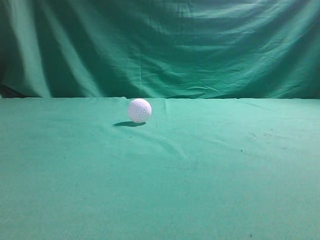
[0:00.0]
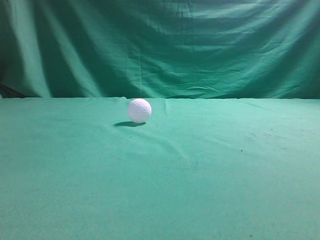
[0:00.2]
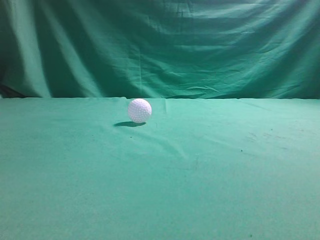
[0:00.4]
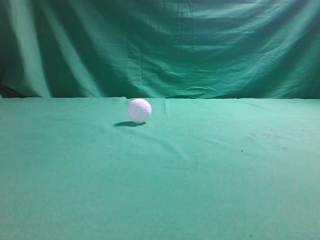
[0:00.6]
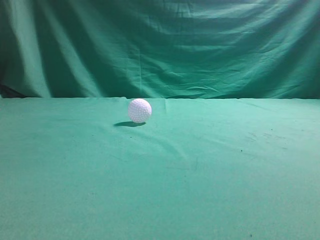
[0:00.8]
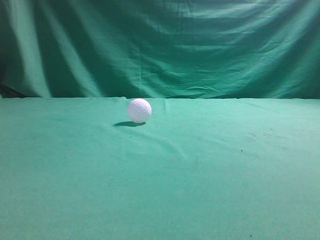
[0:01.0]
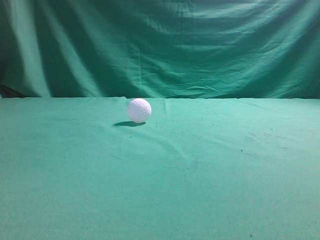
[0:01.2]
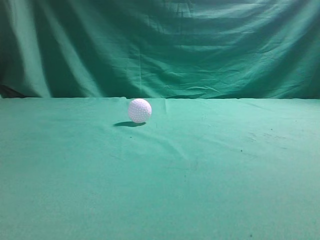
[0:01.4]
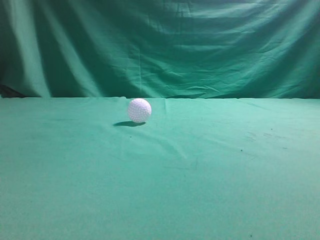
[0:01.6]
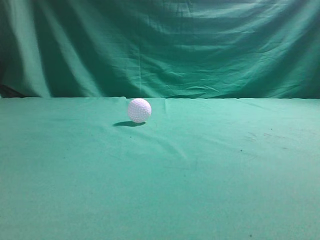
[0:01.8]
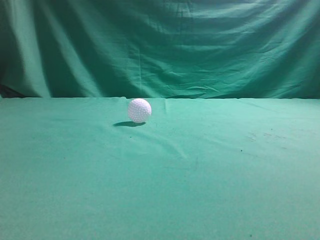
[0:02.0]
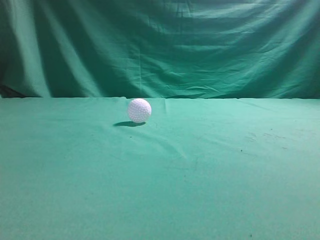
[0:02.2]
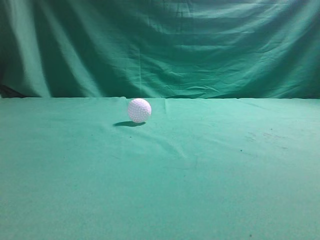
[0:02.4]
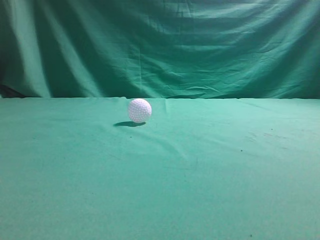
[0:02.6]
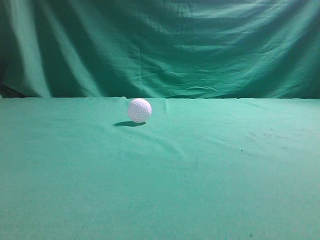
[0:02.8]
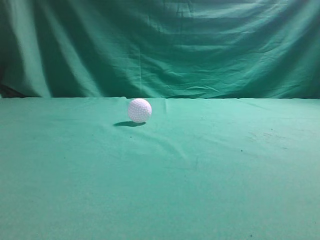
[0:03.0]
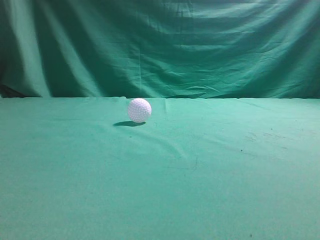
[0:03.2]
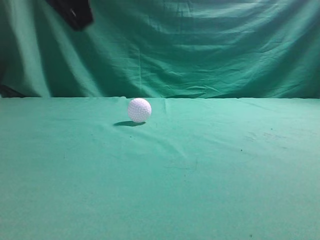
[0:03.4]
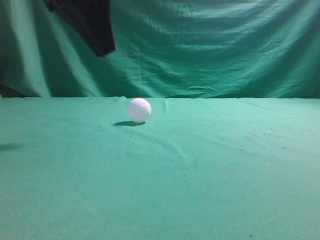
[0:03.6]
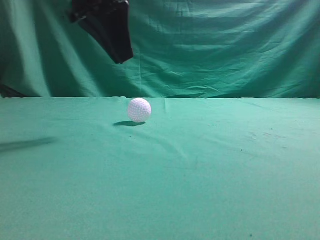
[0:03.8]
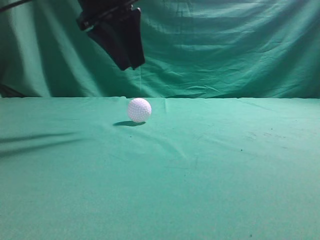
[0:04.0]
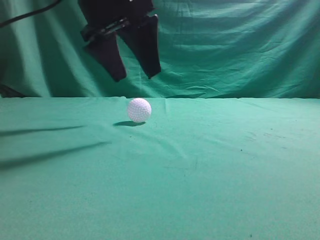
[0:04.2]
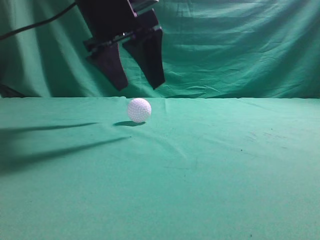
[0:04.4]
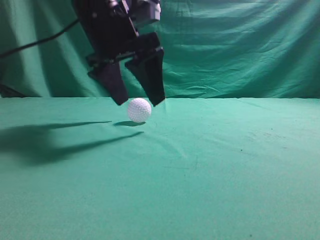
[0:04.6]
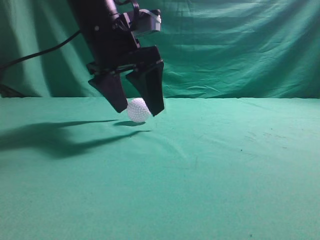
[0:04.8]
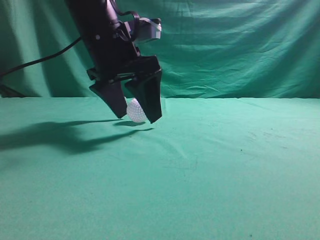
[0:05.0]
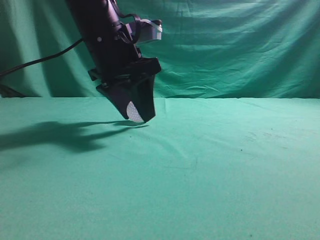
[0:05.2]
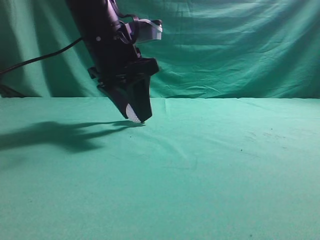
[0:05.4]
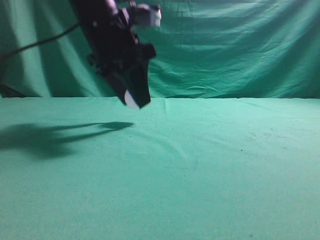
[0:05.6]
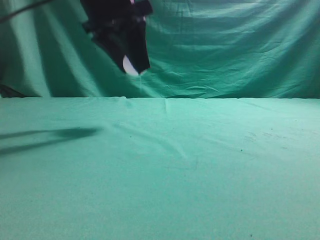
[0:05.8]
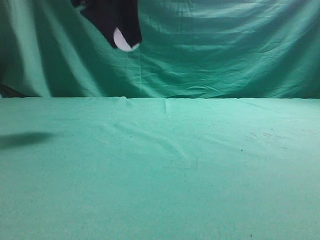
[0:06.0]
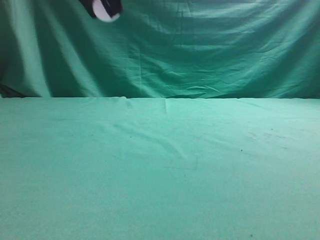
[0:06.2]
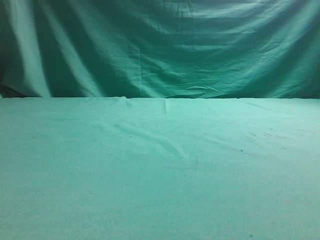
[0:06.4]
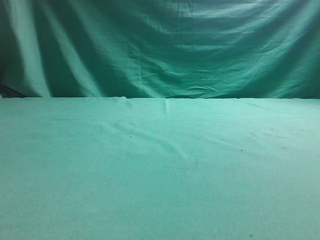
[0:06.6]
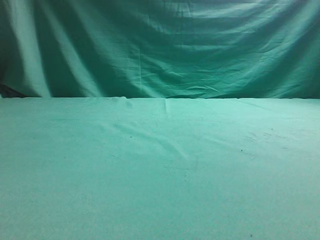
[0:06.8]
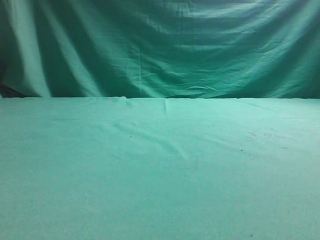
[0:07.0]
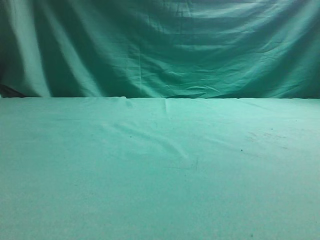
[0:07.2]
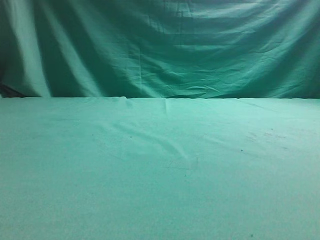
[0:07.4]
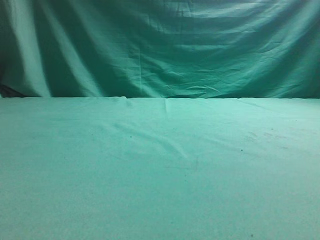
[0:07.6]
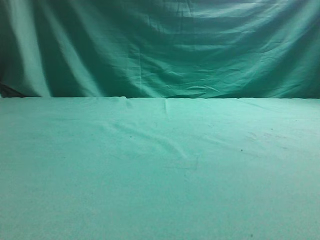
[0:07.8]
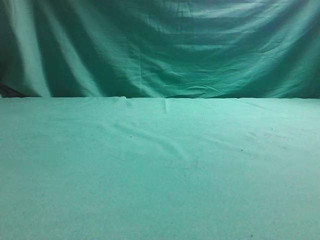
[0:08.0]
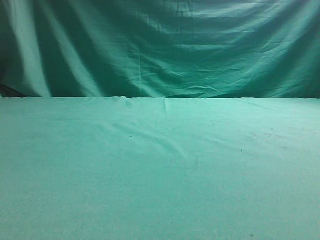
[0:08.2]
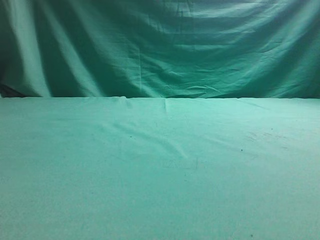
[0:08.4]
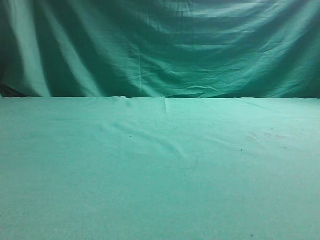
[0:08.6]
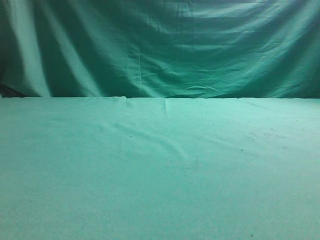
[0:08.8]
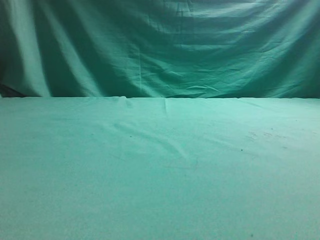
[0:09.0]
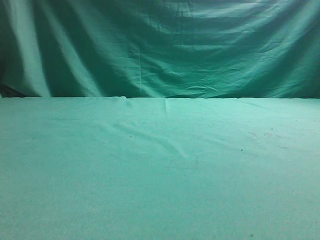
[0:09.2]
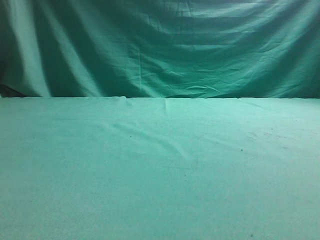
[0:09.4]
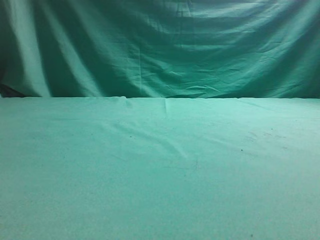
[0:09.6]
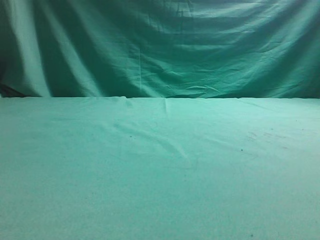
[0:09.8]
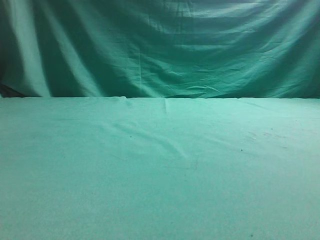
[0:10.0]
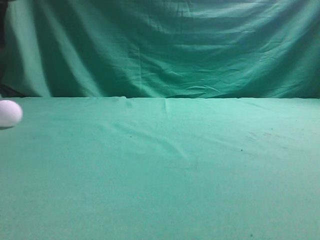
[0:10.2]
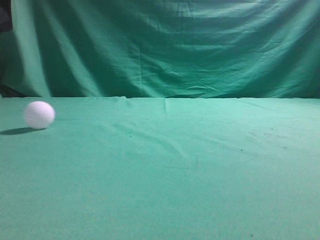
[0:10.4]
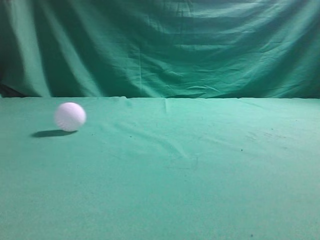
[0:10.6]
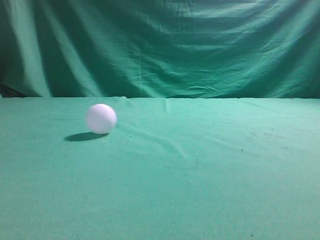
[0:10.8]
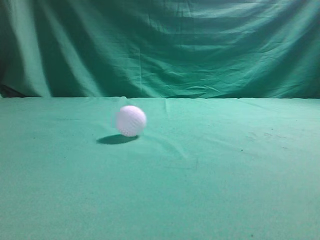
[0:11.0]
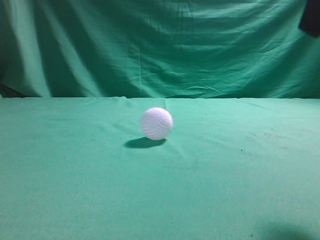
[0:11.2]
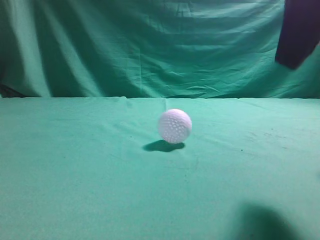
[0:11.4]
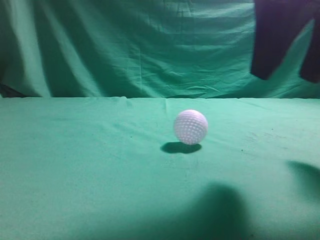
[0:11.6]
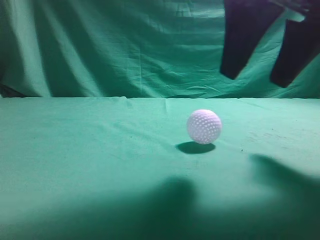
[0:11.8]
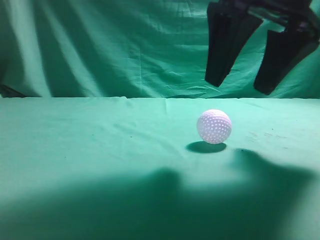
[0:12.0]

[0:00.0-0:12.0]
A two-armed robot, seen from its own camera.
Task of the whole recording: pick up the ball and place it on the plate, then pick up the ball from the plate and put it in the center of the table.
Step, 0:00.0 to 0:05.6: Grab the spherical object with your left arm.
Step, 0:05.8 to 0:09.4: Place the sphere on the white object.
0:03.0 to 0:04.4: The left gripper heads forward, to the right and downward, covering approximately 30 cm, and opens up.
0:04.4 to 0:06.0: The left gripper travels upward by about 5 cm, and closes up.
0:06.0 to 0:07.6: The left gripper is displaced to the left by approximately 20 cm.
0:09.0 to 0:10.4: The left gripper shifts some 10 cm upward and to the right, and opens, then closes once more.
0:10.4 to 0:12.0: The left gripper goes approximately 25 cm backward, and closes its fingers, while the right gripper heads to the left and forward, covering approximately 10 cm, and opens.

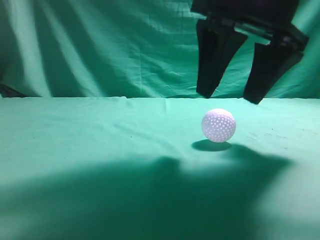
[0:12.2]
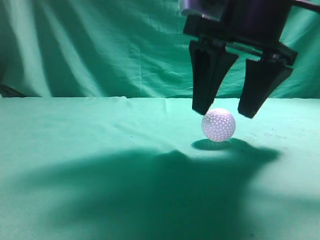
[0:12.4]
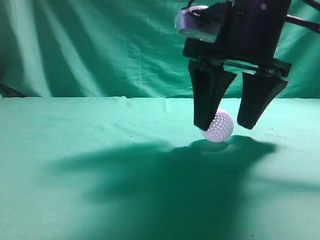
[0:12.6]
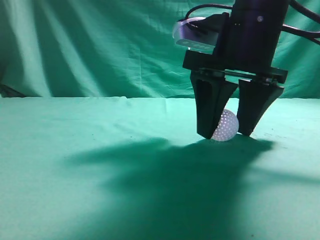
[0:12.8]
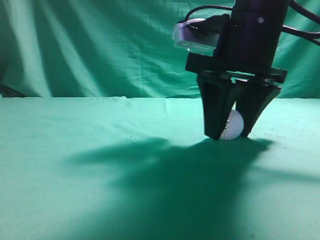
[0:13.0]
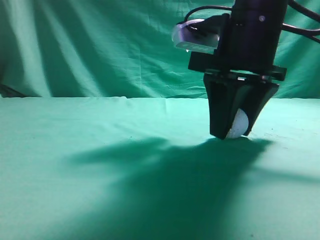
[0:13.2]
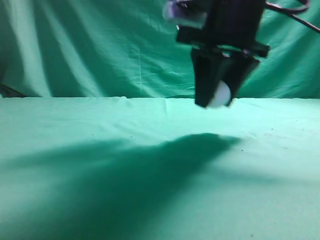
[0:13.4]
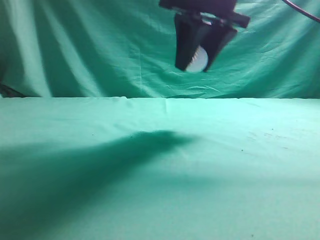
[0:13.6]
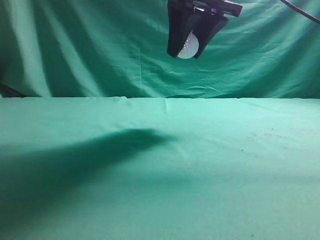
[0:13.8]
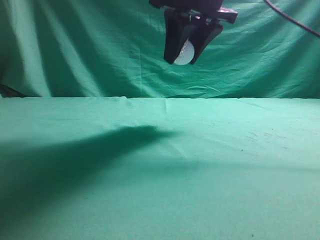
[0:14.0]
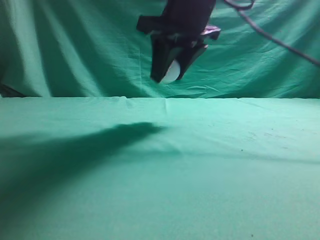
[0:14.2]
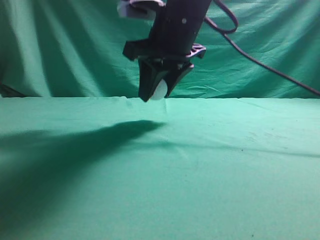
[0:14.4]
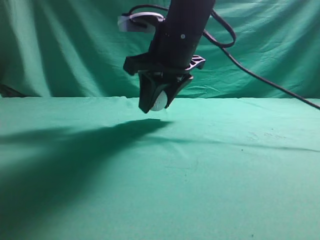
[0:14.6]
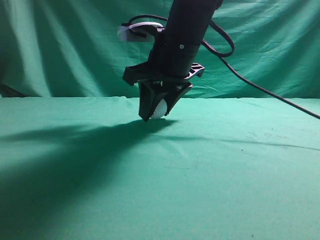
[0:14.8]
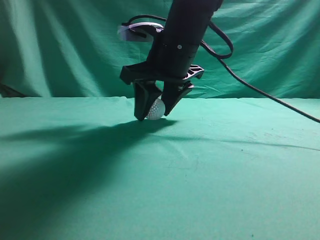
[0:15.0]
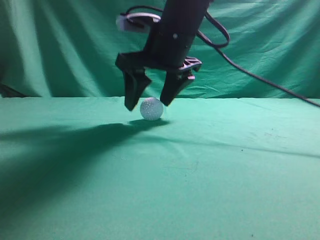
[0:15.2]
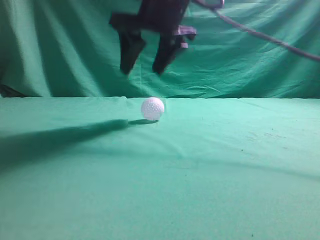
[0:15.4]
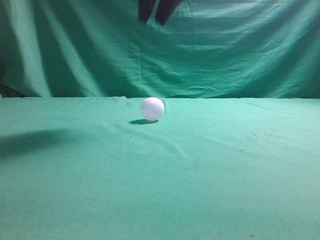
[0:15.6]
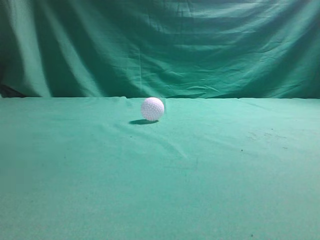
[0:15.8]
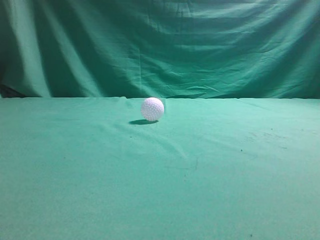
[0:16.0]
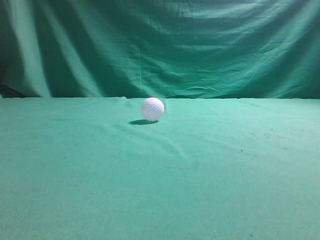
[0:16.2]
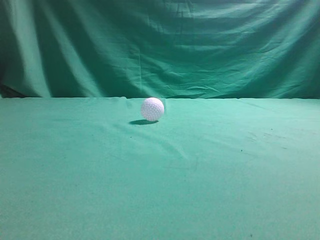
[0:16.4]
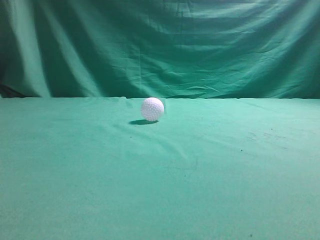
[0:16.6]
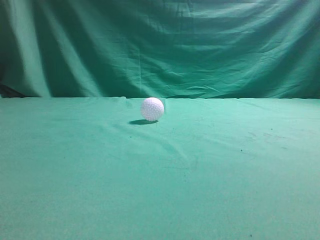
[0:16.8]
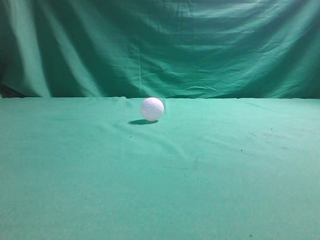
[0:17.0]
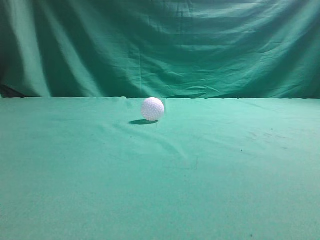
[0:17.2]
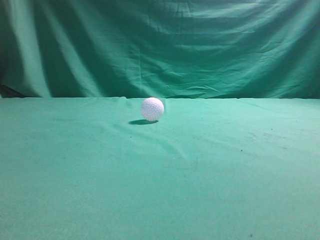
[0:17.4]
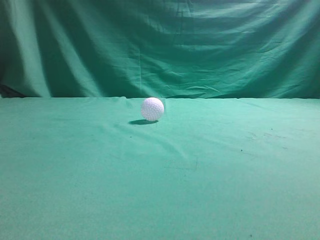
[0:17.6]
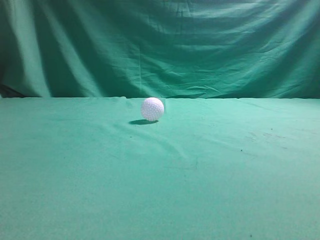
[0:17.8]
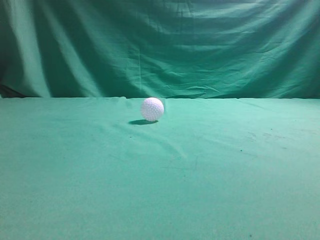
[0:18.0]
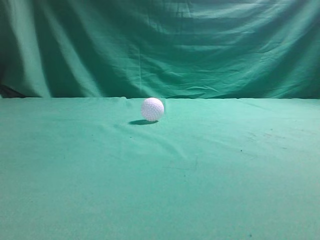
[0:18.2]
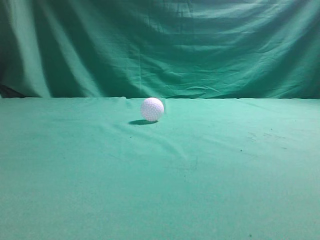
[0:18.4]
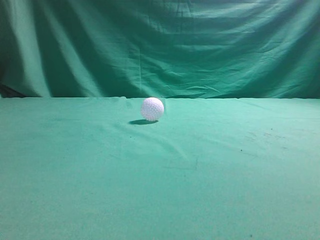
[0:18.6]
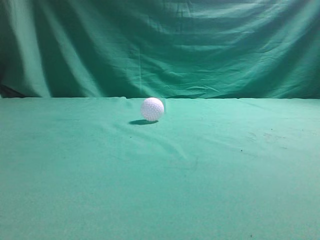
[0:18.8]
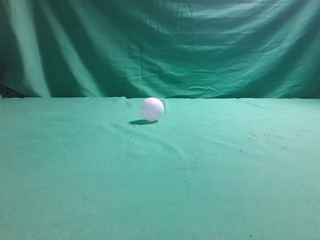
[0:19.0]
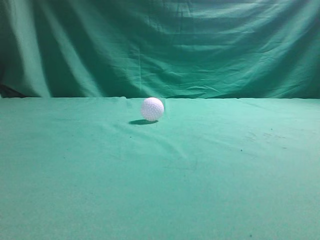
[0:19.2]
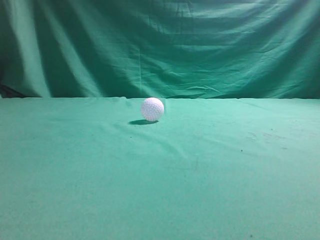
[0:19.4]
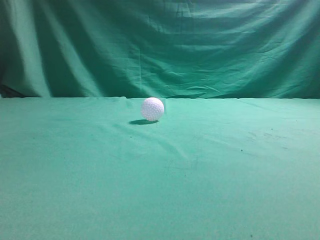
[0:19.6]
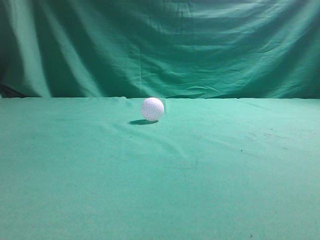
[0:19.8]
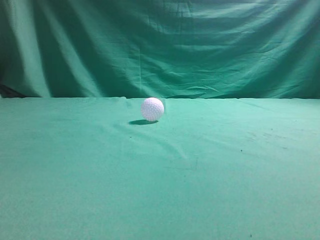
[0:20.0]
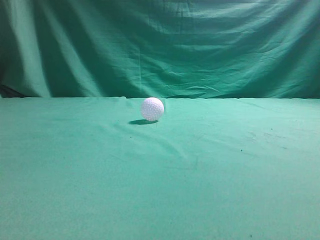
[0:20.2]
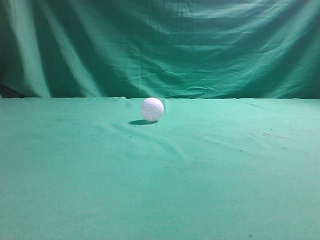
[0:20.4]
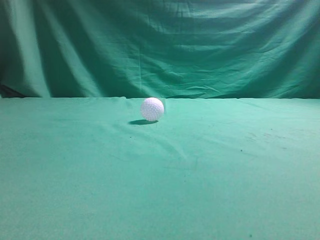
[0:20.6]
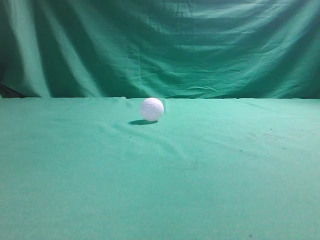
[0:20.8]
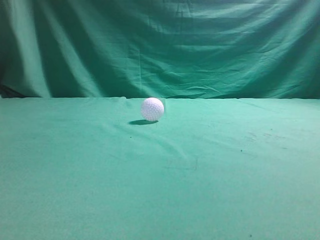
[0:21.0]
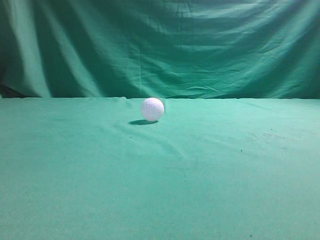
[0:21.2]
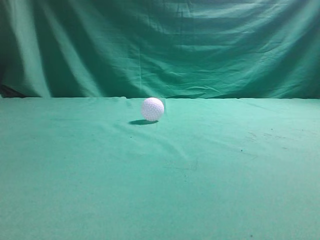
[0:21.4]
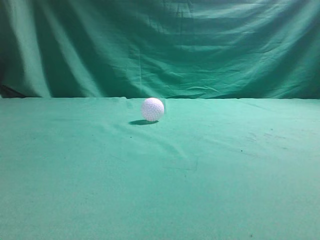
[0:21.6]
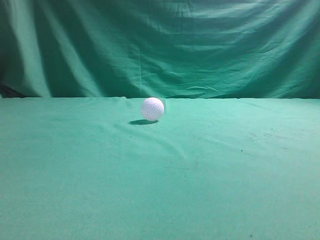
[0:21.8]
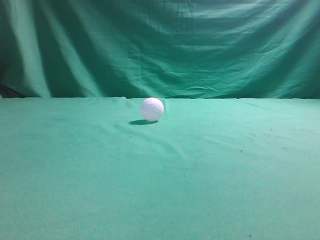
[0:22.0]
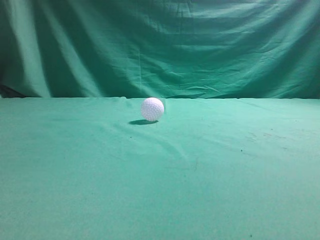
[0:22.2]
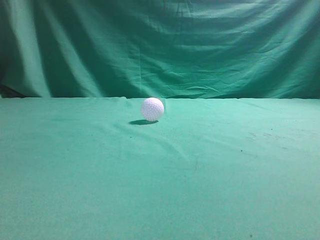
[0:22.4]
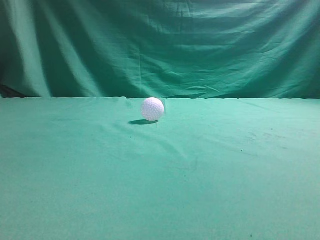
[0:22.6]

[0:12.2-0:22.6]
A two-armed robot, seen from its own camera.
Task of the whole recording: pick up the ball and place it on the plate, then pick up the ball from the plate and put it in the center of the table.
Step, 0:13.8 to 0:15.2: Put the picked-up object on the table.
0:12.2 to 0:13.6: The right gripper moves forward, some 5 cm, and closes.
0:13.6 to 0:15.2: The right gripper heads downward and to the left, covering some 10 cm, and opens, while the left gripper goes about 5 cm downward.
0:15.2 to 0:16.6: The right gripper heads upward, backward and to the right, covering roughly 35 cm, and closes.
